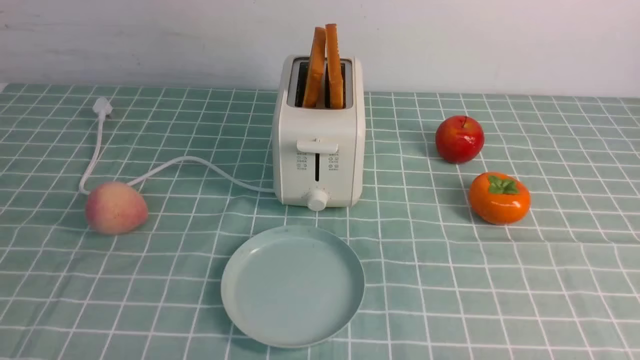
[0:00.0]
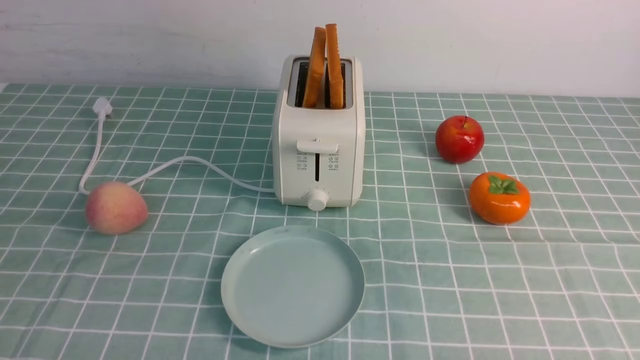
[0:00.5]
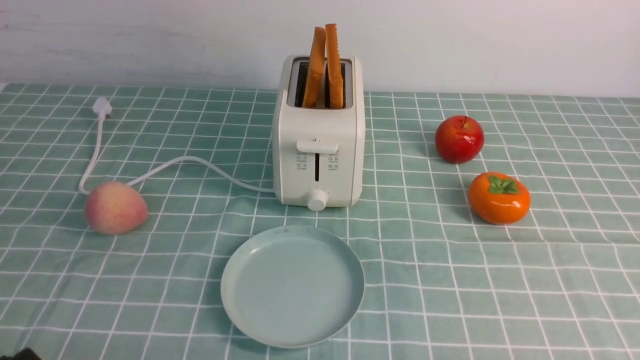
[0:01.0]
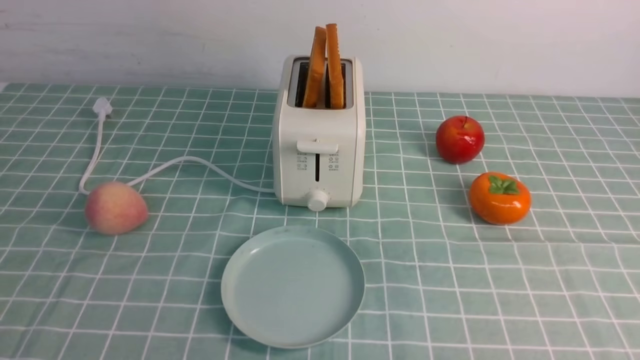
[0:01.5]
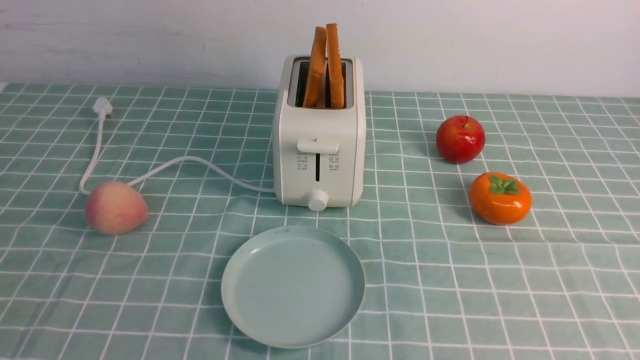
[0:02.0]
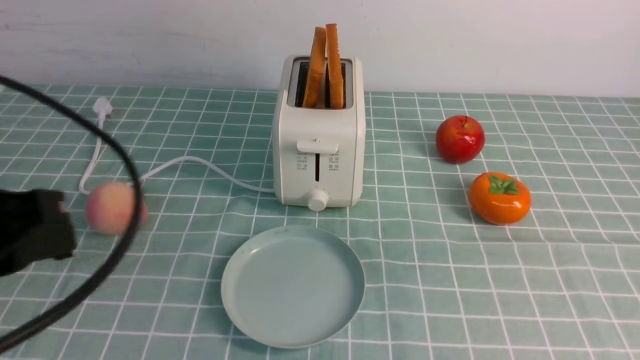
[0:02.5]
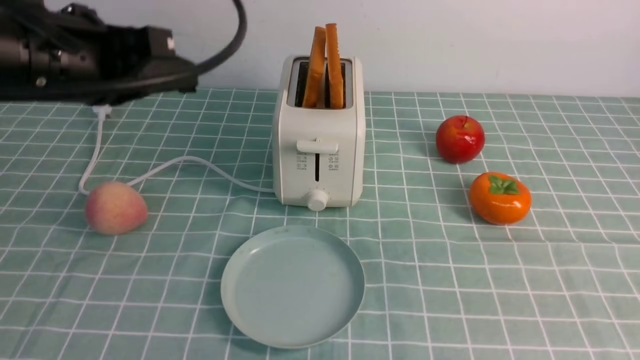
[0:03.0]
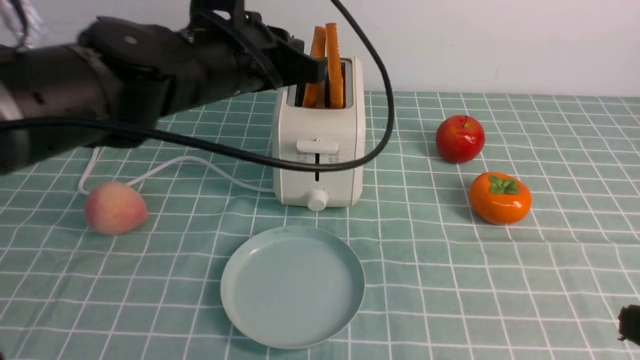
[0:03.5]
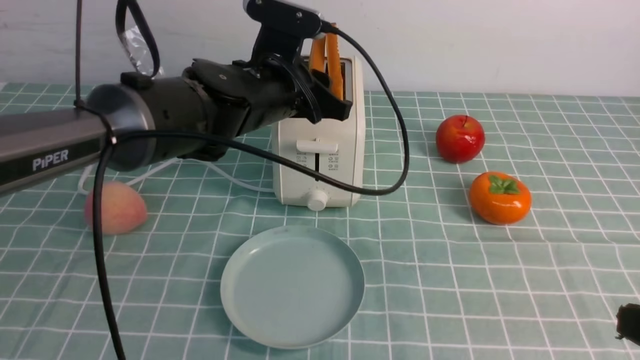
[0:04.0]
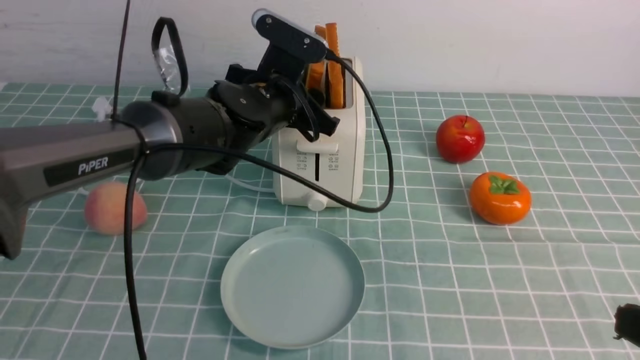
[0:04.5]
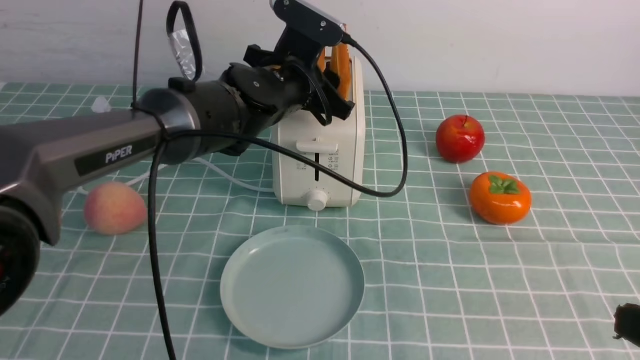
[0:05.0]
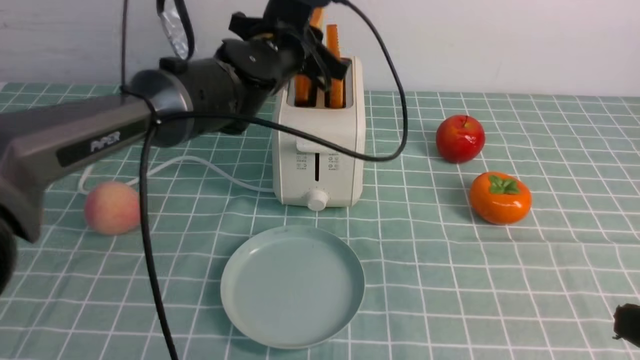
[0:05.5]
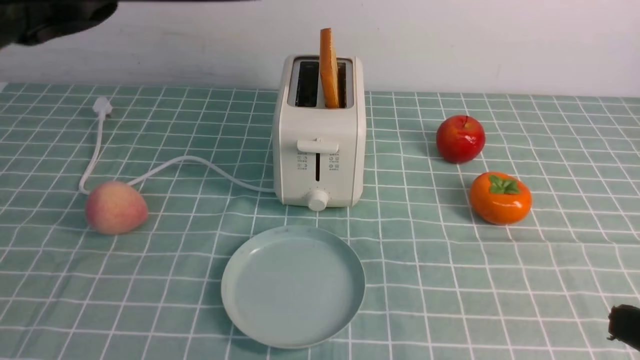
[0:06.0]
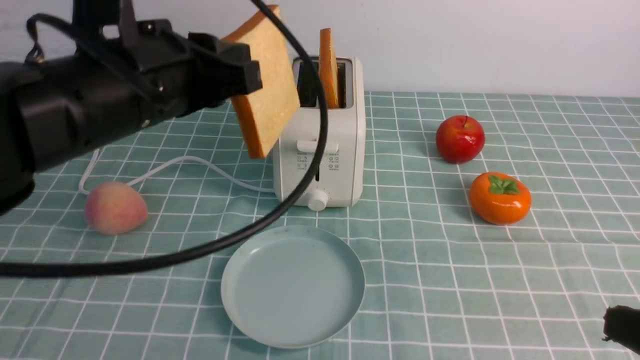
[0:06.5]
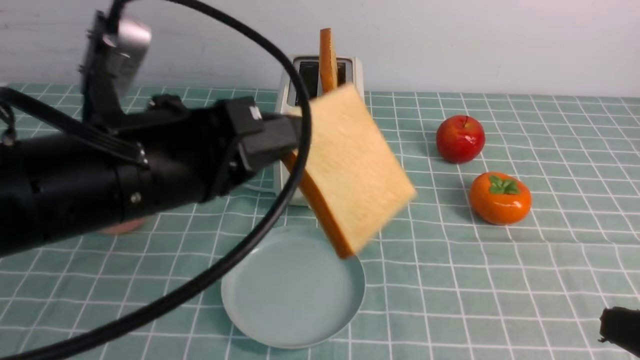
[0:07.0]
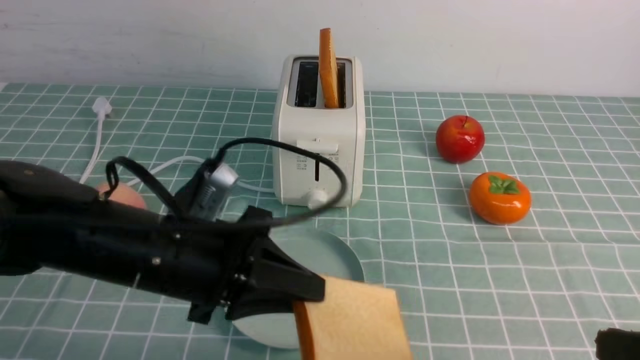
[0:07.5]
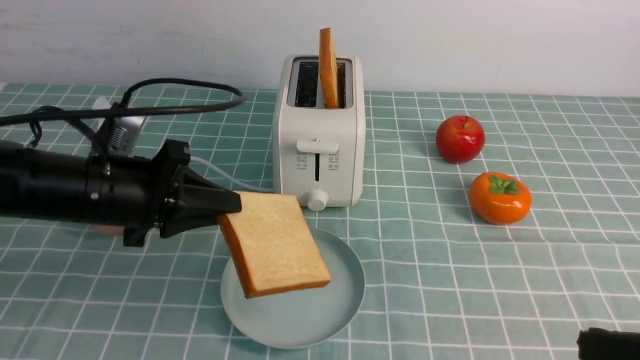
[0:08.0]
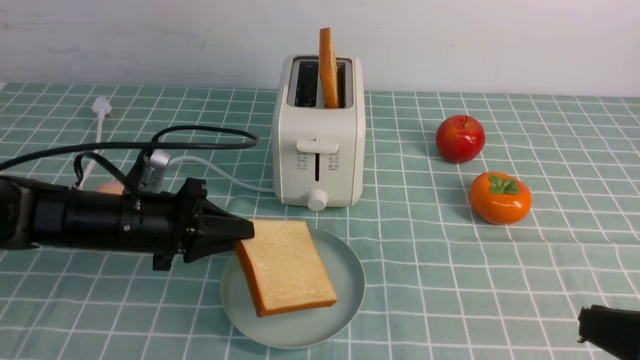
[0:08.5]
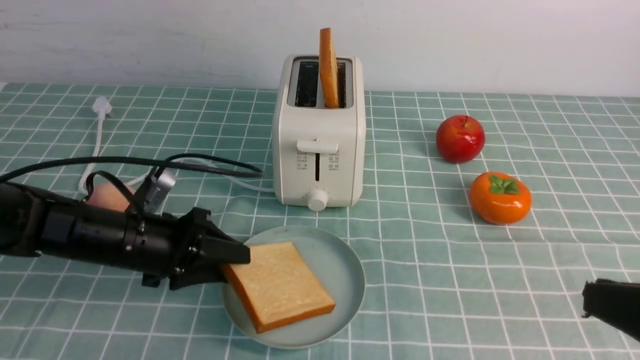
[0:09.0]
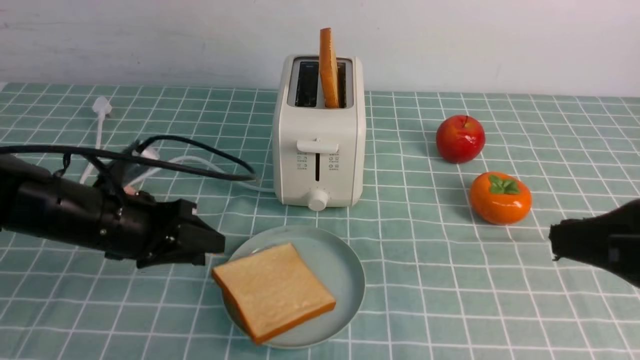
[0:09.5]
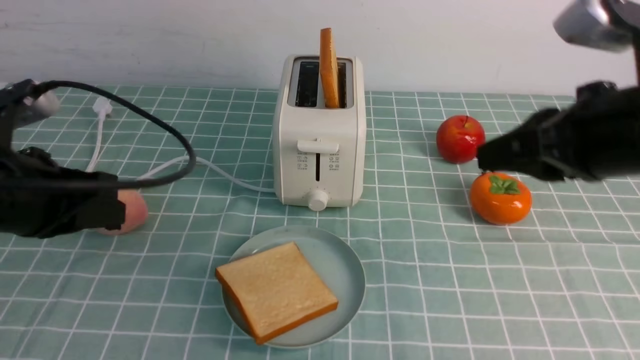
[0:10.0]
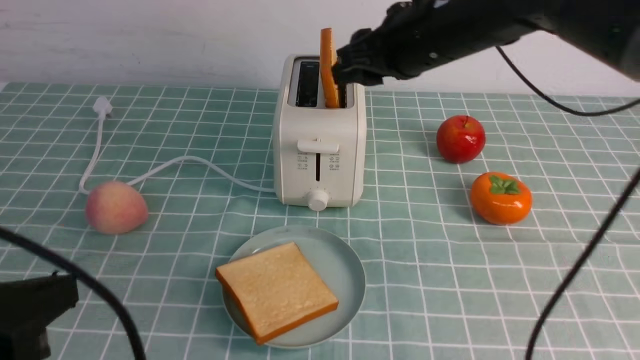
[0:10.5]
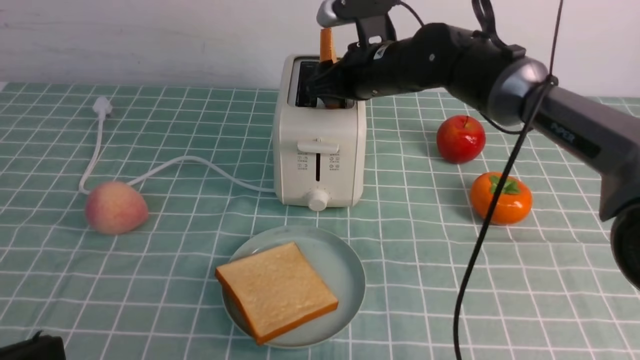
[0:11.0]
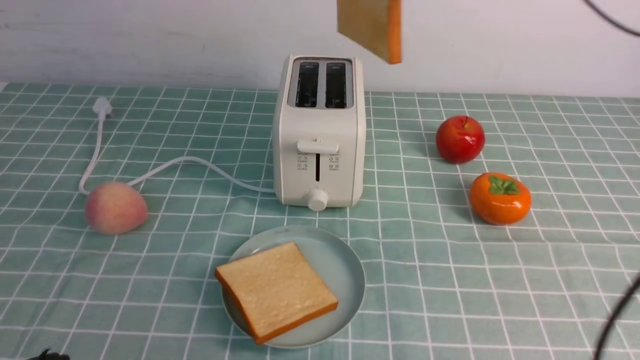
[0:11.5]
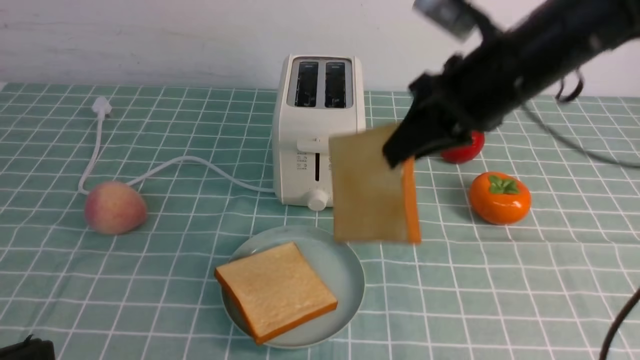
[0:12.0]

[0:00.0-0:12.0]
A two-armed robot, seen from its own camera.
Task of the whole recording: take toasted bread from bread machine on blue coffee table place on plate.
Step, 0:00.0 to 0:05.5: use the left arm to take out a slice of bread.
Step, 0:06.0 to 0:09.0: use the left arm to put a slice of bread into the empty plate.
Step, 0:10.0 to 0:11.0: use the right arm to take out a slice of bread.
0:02.0 to 0:04.0: The right gripper moves forward, some 5 cm, goes upward and returns, approximately 10 cm each way, and closes its fingers. Meanwhile the left gripper is displaced forward and to the right by some 40 cm, and opens.
0:04.0 to 0:06.0: The left gripper travels upward and backward by about 15 cm, and closes.
0:06.0 to 0:08.0: The left gripper heads downward and to the left, covering roughly 20 cm.
0:08.0 to 0:10.0: The right gripper travels forward, upward and to the left by roughly 20 cm. Meanwhile the left gripper goes some 10 cm backward and upward, and opens, then closes once more.
0:10.0 to 0:12.0: The right gripper travels forward and to the left by about 10 cm, and opens and closes again; the left gripper moves backward, approximately 20 cm.

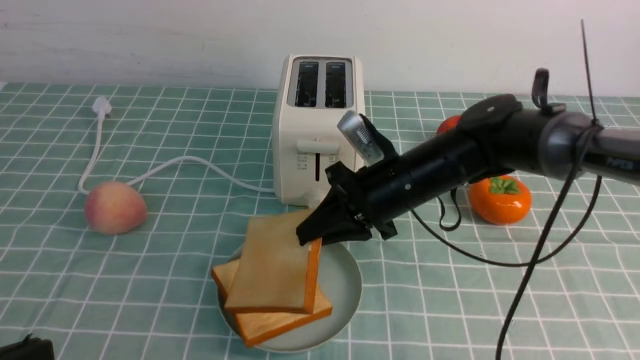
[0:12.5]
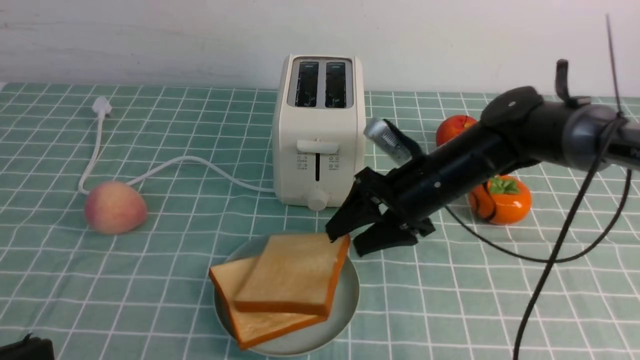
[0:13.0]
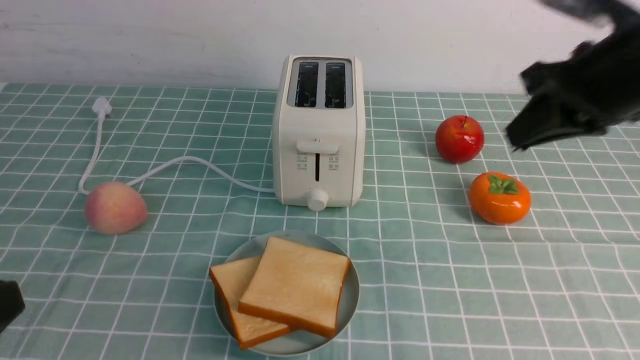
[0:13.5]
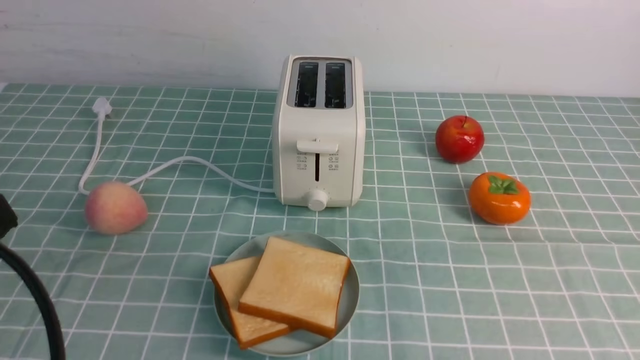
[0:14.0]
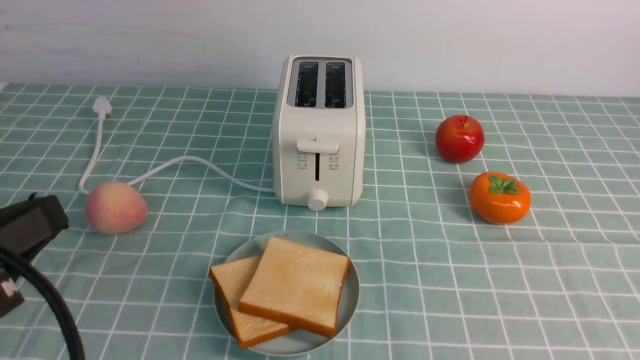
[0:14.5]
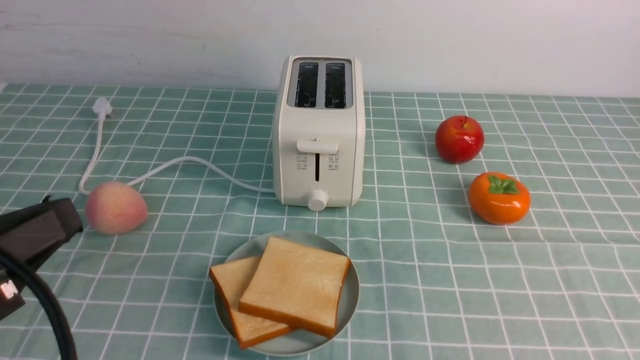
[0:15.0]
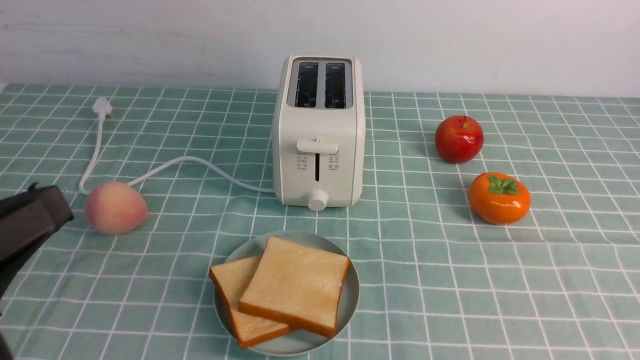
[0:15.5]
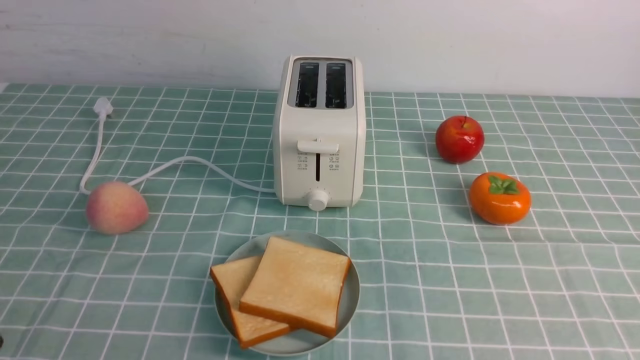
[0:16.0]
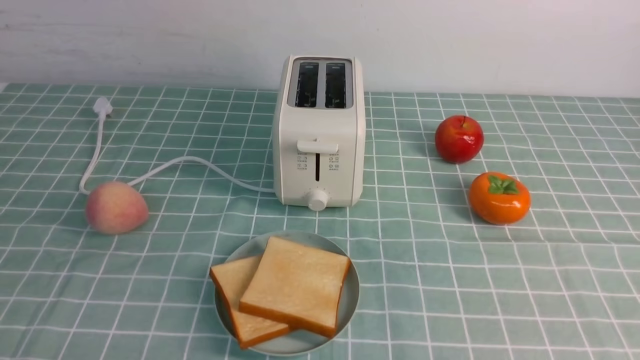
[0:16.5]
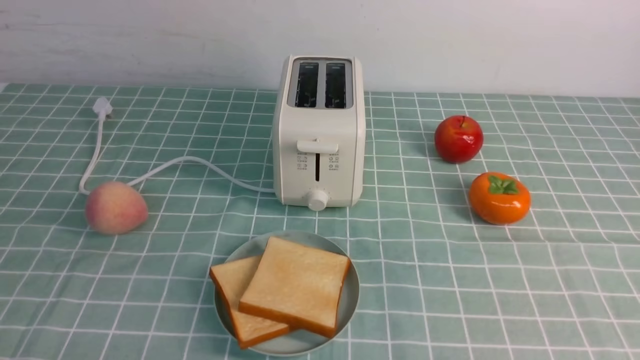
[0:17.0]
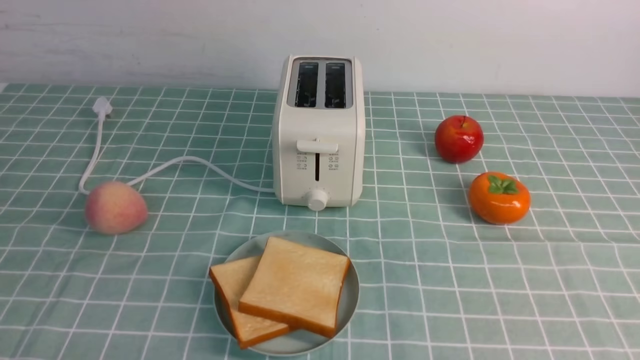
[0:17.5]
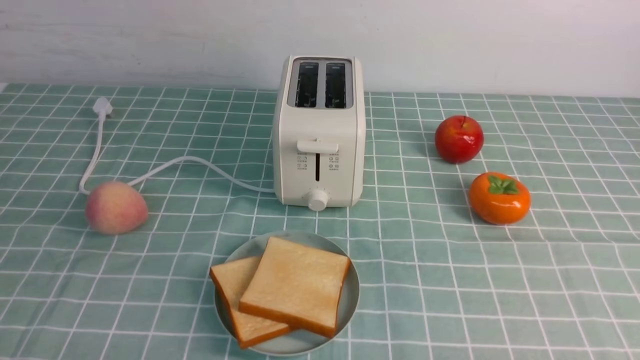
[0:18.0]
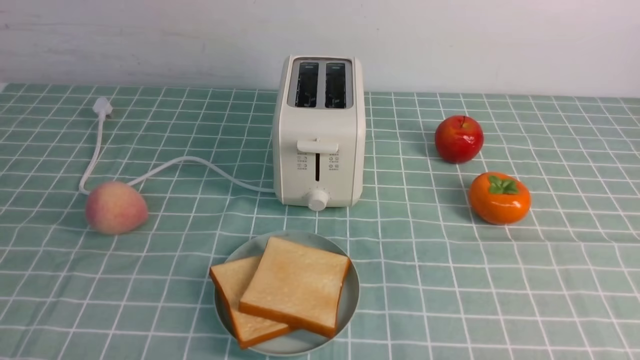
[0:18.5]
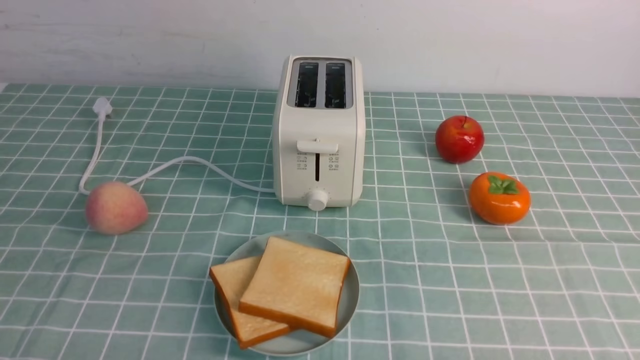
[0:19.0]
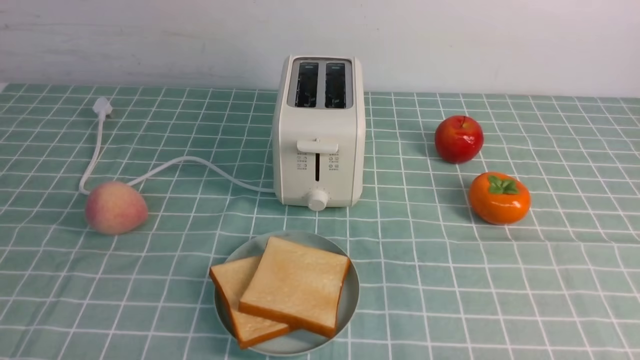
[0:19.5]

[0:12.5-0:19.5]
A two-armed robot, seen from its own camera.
Task of the whole recording: take toasted bread from bread machine on blue coffee table place on plate.
0:12.5 to 0:14.5: The left gripper heads forward, covering roughly 5 cm, while the right gripper goes some 40 cm backward and to the right, and opens, then closes once more.
0:14.5 to 0:16.0: The left gripper is displaced downward by some 10 cm.

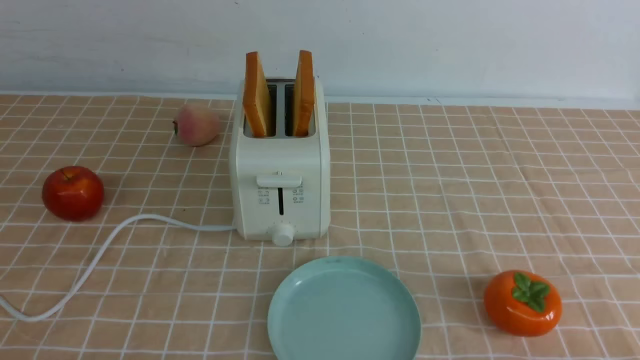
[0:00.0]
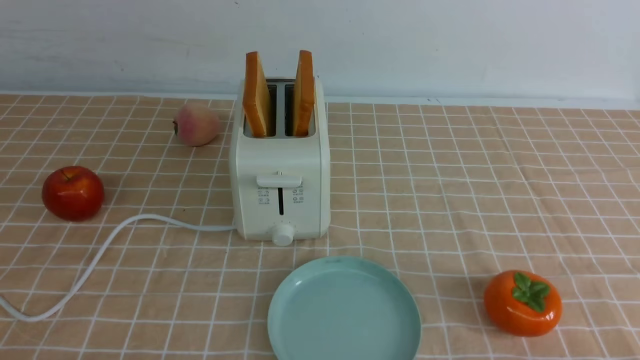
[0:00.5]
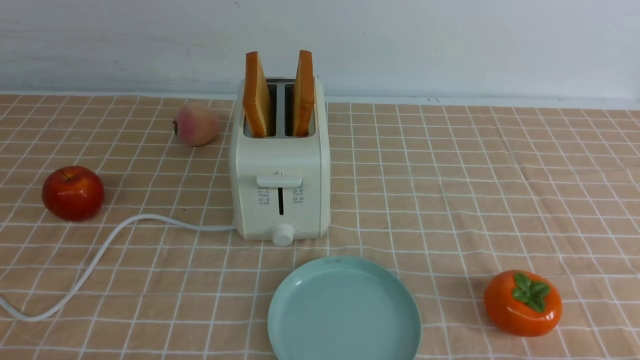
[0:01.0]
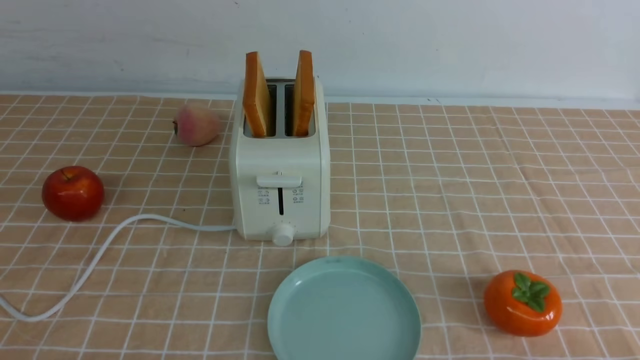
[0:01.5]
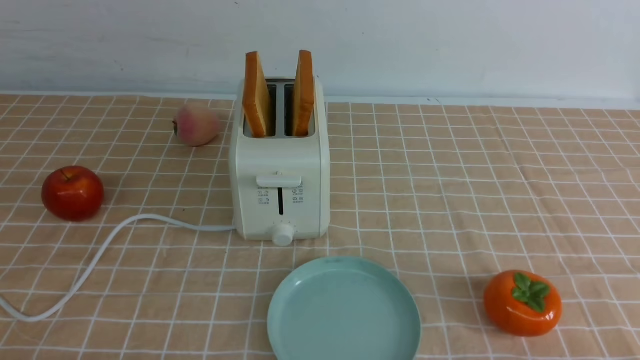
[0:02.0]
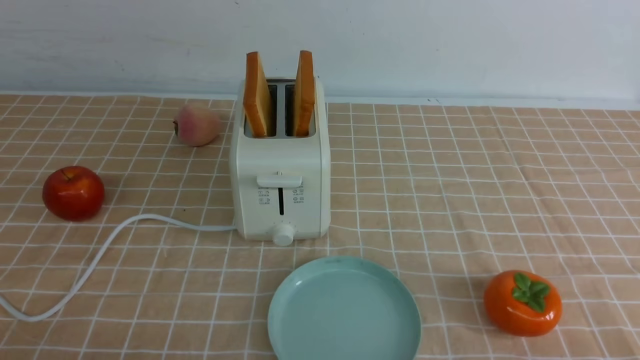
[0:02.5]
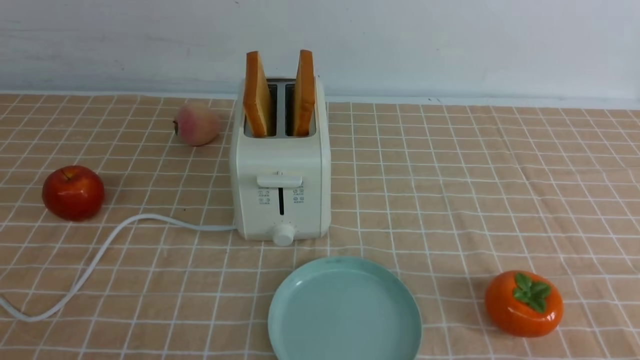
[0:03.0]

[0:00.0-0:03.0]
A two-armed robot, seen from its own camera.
Task of the whole recording: take toasted bread from bread machine on light coffee tablecloth place on plate.
0:00.0 to 0:01.5: Neither gripper changes place.
